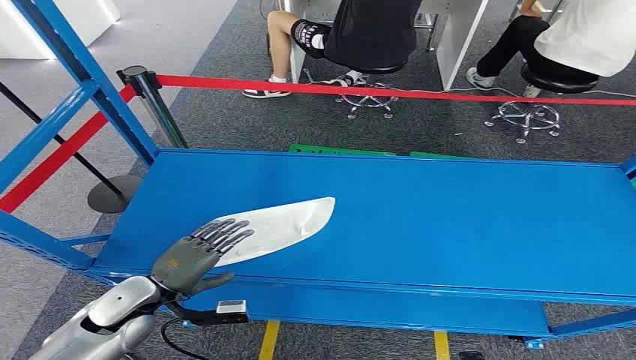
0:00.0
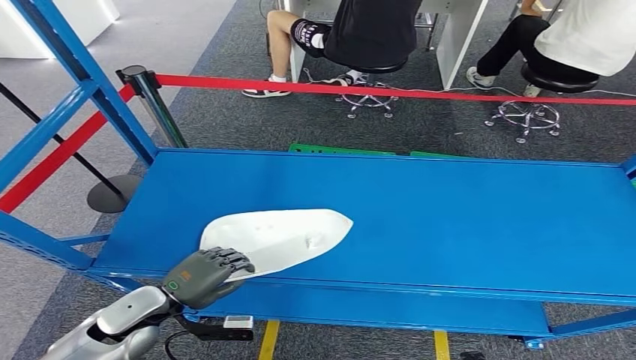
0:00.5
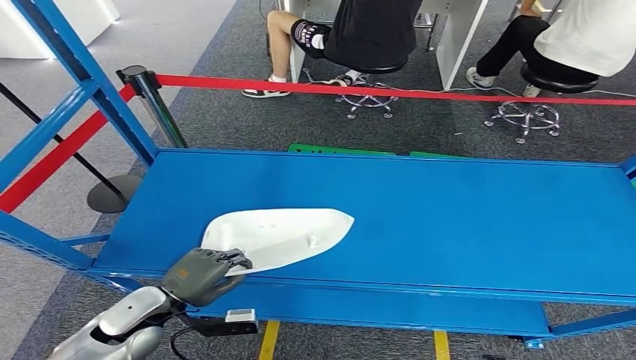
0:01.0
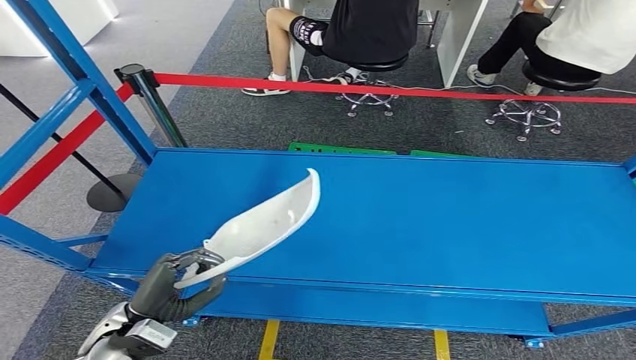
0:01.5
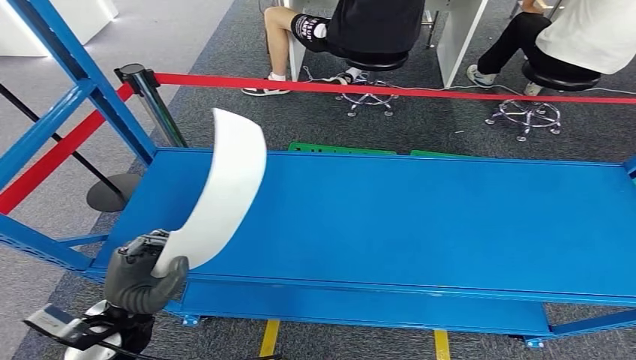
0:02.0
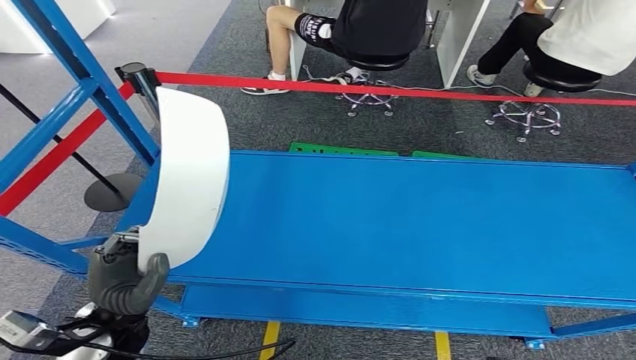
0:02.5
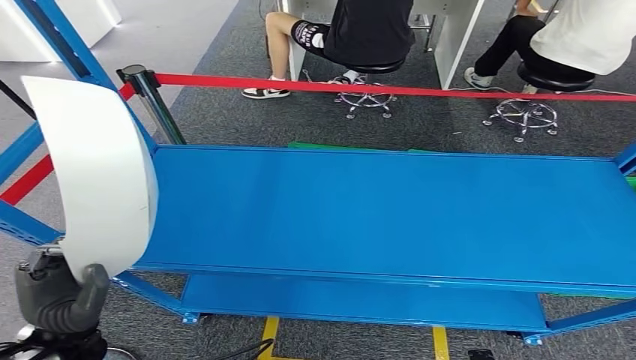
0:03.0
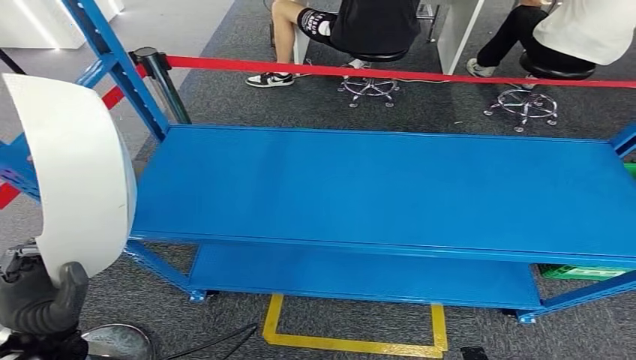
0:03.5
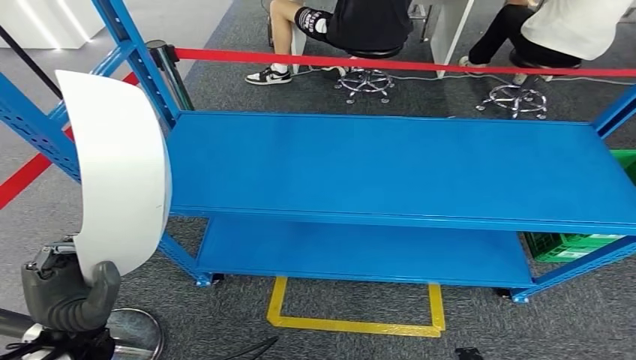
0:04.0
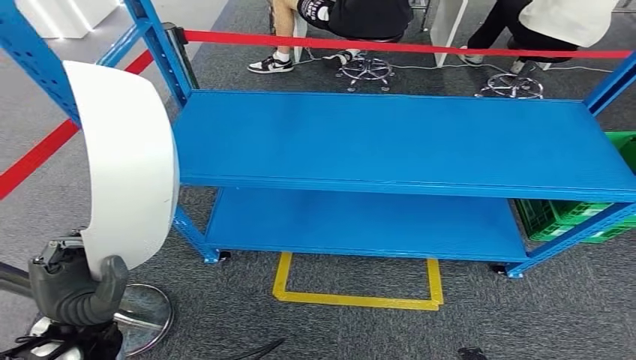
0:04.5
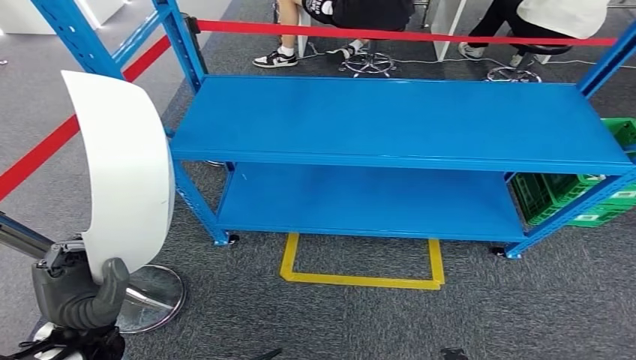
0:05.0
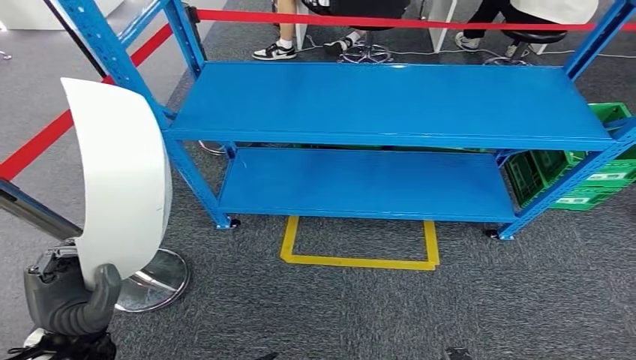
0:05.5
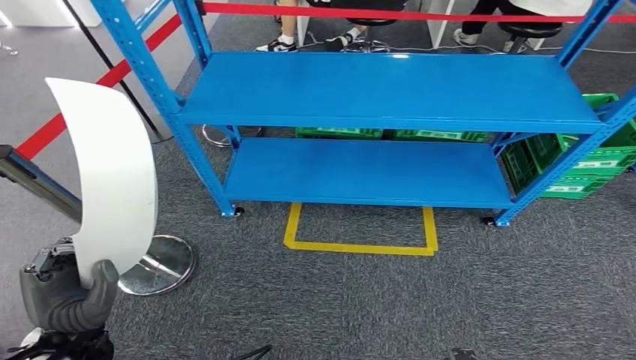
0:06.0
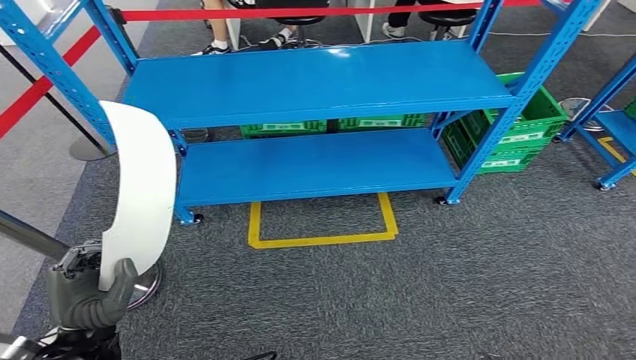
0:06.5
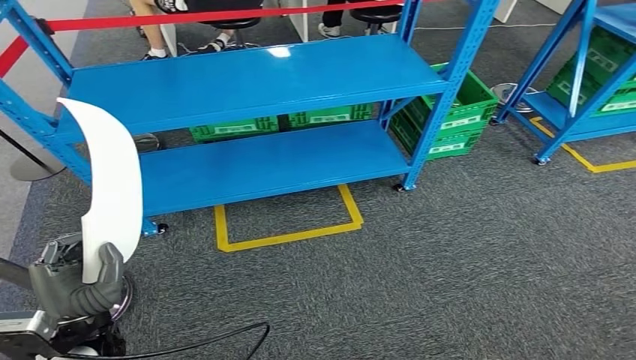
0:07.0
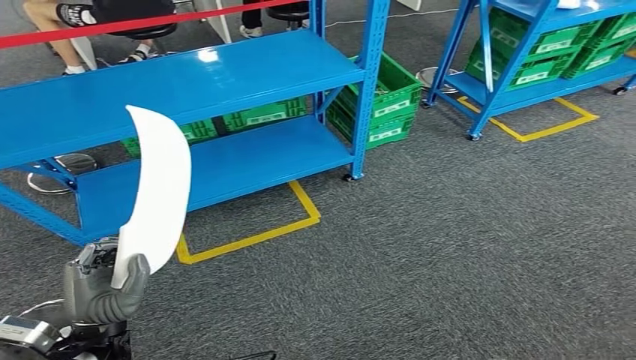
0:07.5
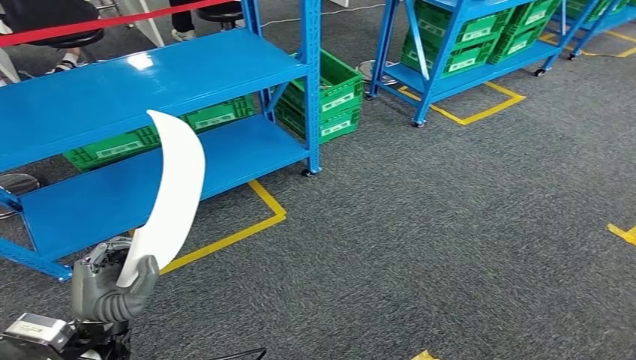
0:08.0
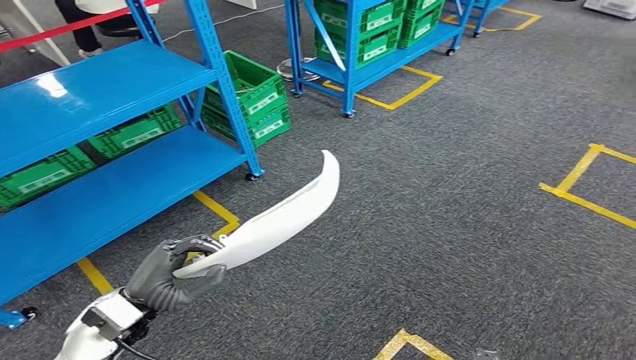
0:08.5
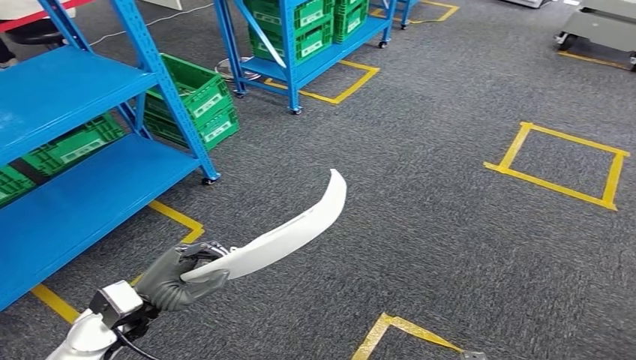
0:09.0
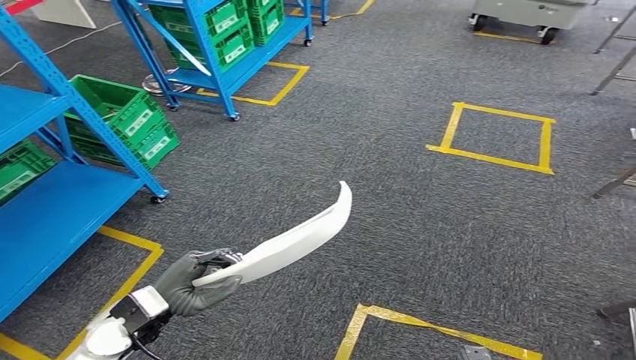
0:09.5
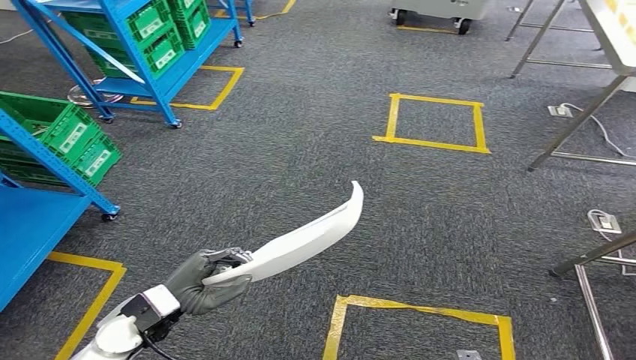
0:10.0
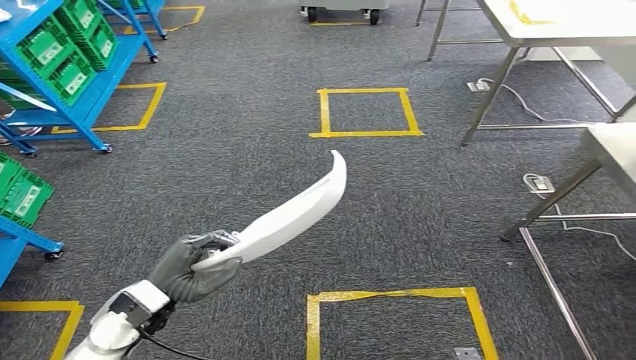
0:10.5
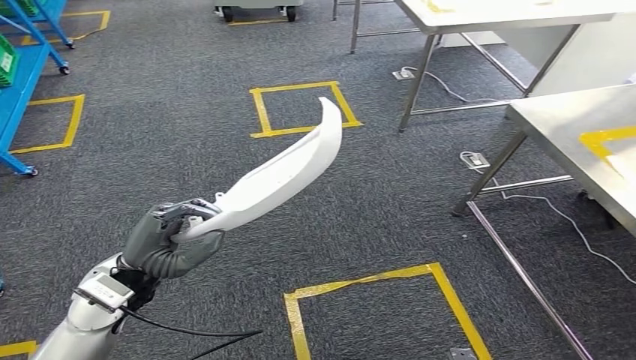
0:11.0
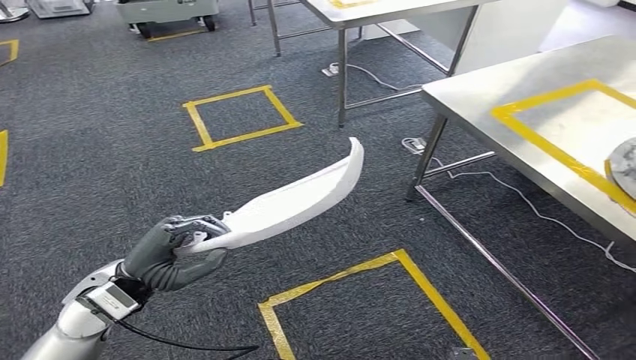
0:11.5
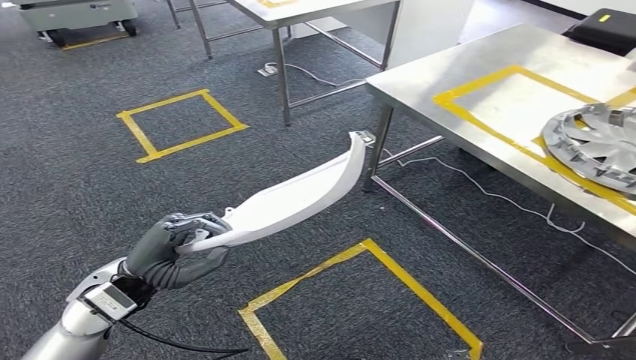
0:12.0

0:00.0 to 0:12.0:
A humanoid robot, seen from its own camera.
Step, 0:00.0 to 0:03.0: Pick up the small parts from the shelf.

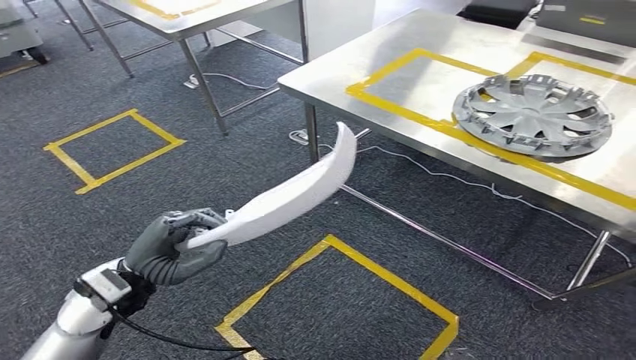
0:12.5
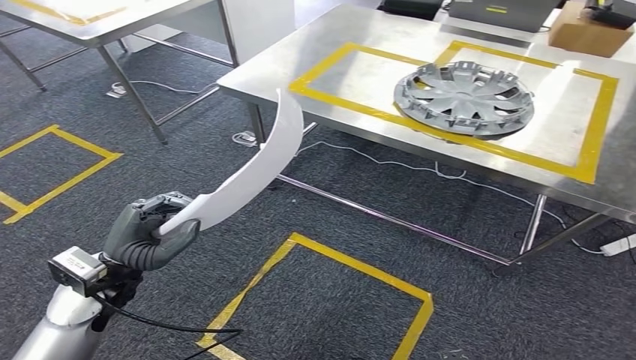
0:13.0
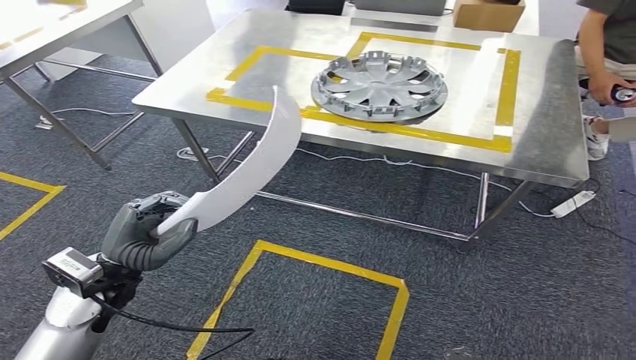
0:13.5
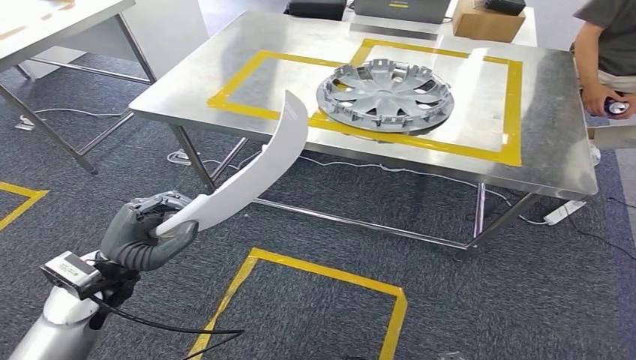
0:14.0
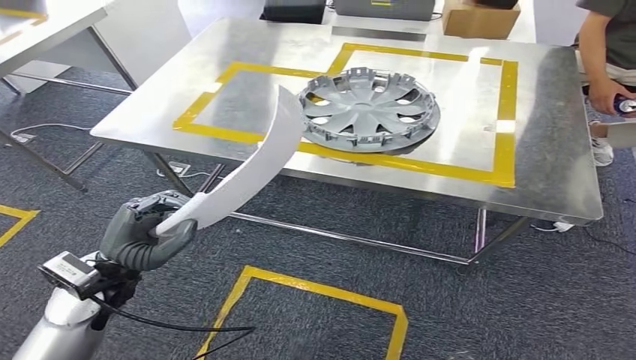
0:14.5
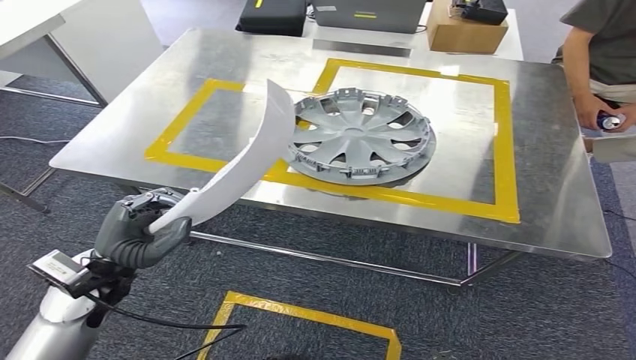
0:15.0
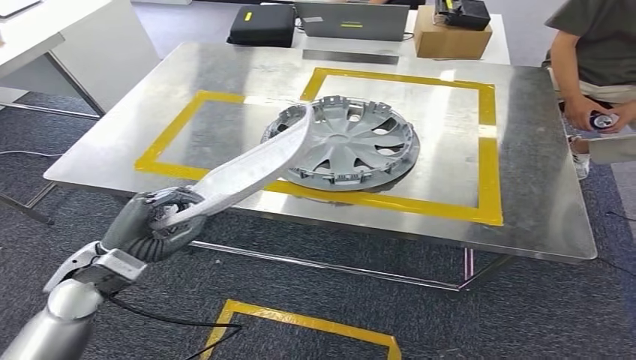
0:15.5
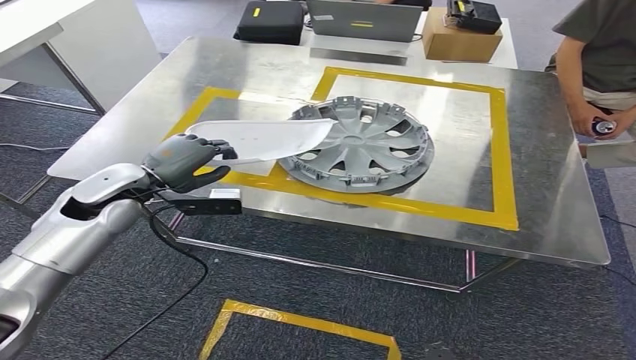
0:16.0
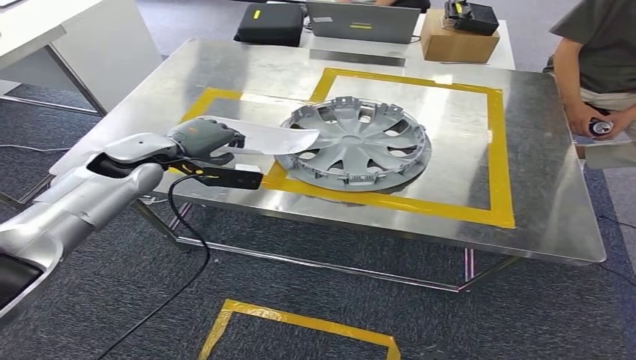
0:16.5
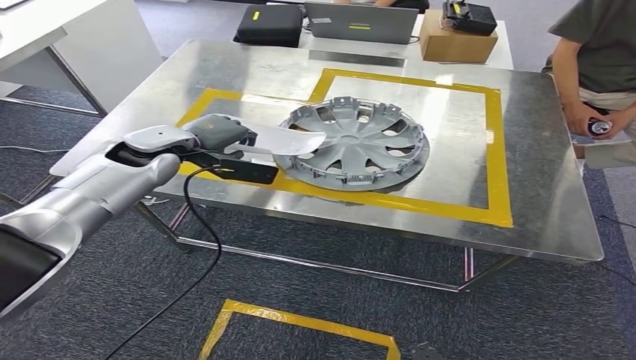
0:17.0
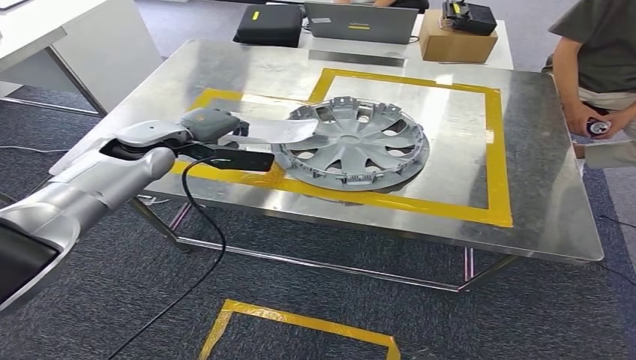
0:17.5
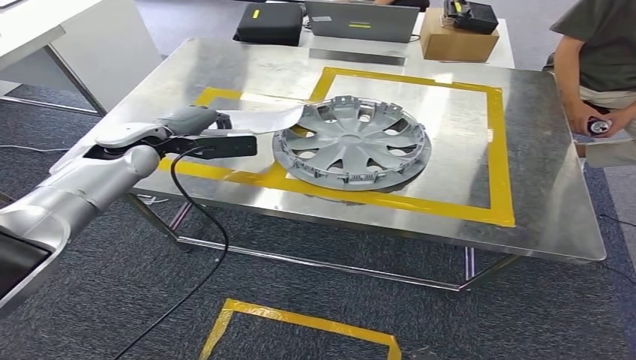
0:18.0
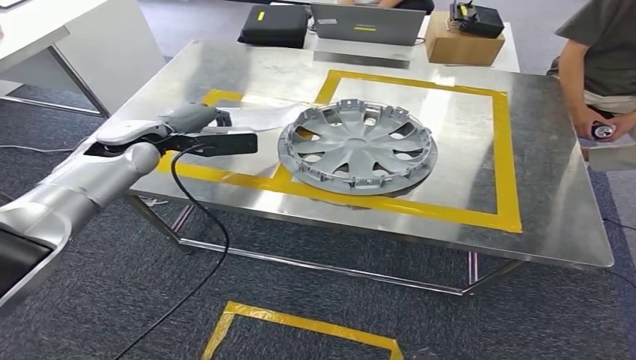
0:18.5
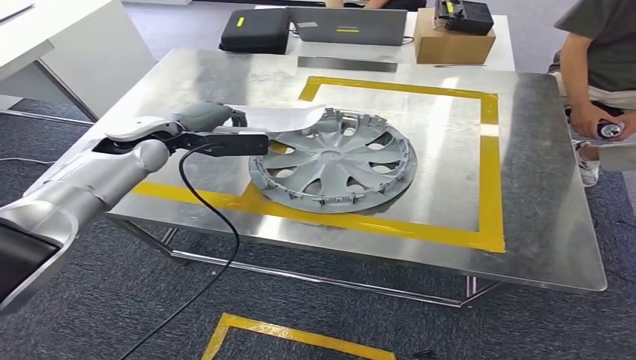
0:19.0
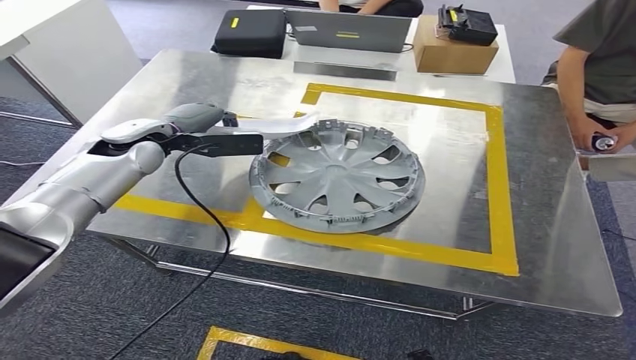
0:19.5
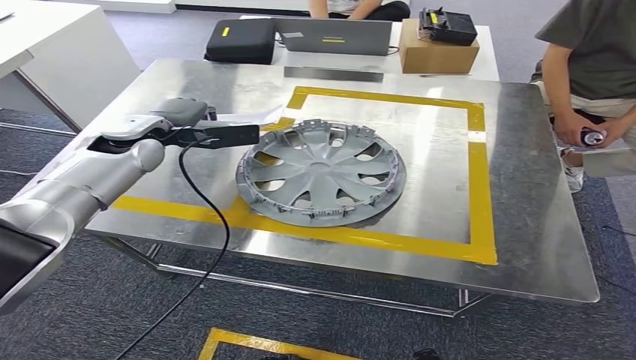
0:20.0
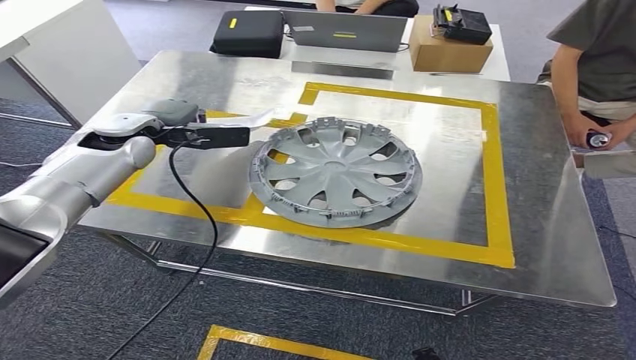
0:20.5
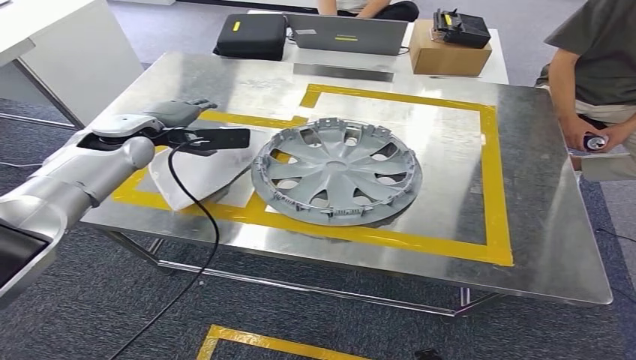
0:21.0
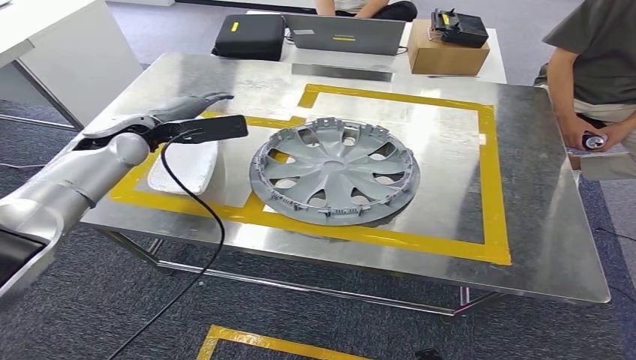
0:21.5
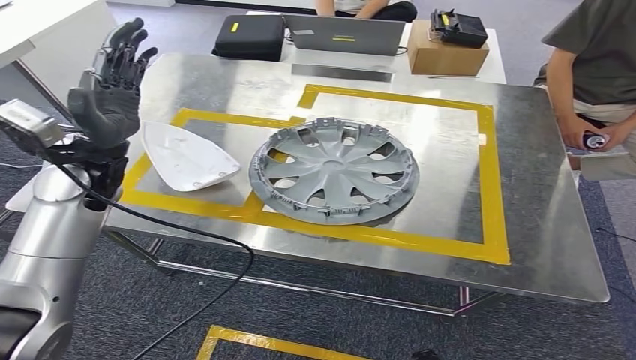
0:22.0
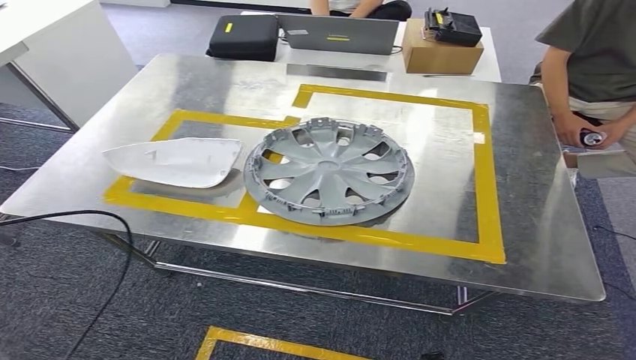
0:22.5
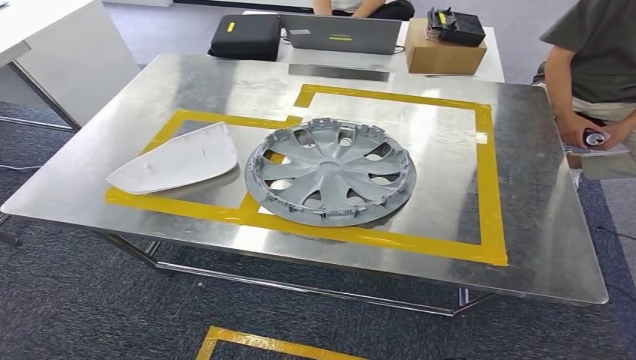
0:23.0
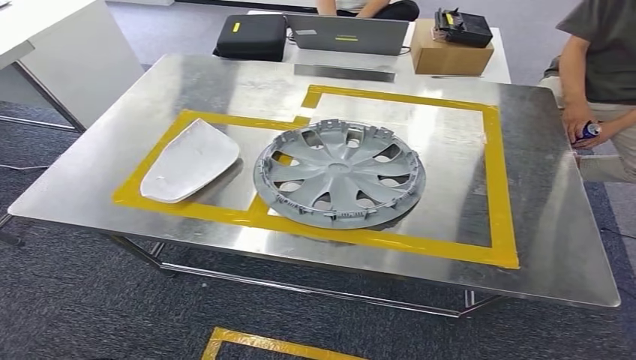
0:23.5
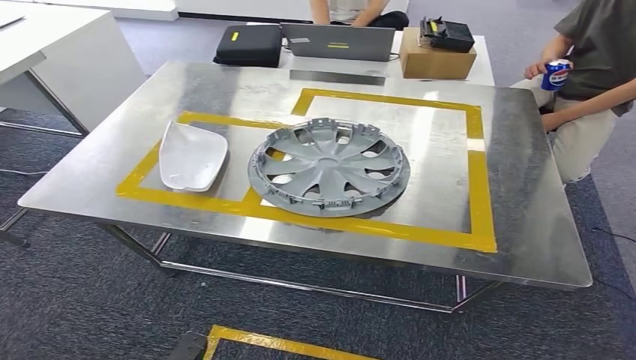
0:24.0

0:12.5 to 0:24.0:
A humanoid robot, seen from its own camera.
Step, 0:12.5 to 0:14.5: Move the small parts to the workbench.
Step, 0:15.0 to 0:22.5: Insert the small parts into the corresponding slots on the workbench.
